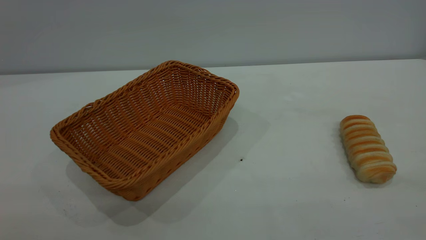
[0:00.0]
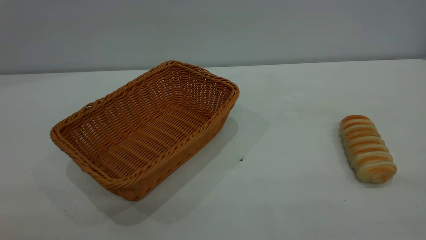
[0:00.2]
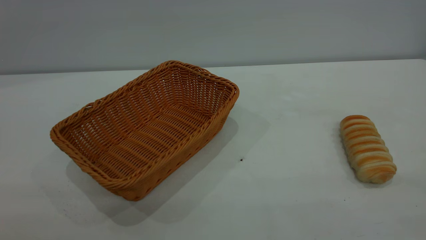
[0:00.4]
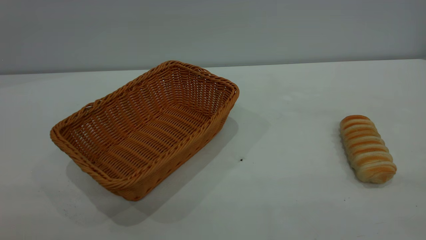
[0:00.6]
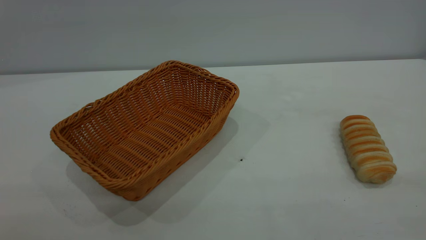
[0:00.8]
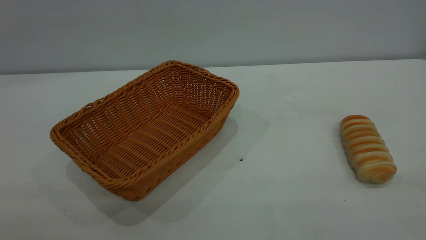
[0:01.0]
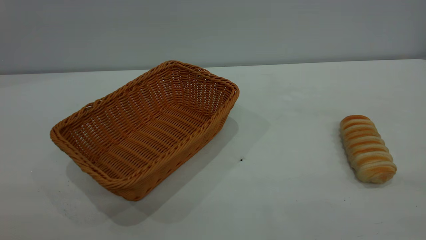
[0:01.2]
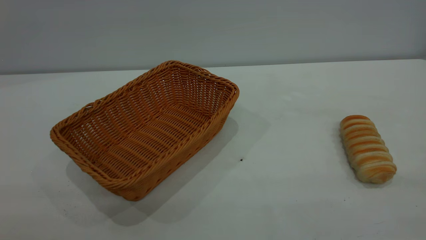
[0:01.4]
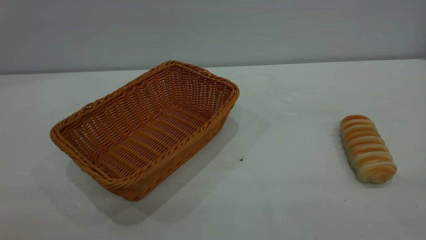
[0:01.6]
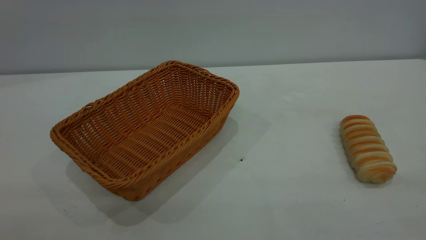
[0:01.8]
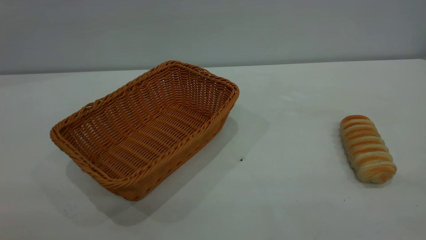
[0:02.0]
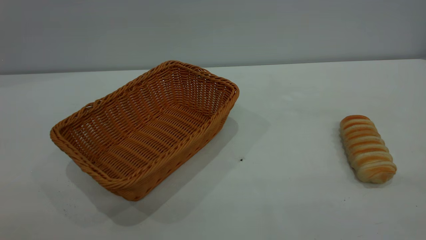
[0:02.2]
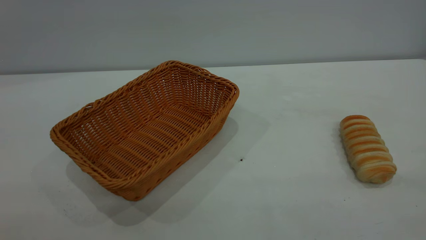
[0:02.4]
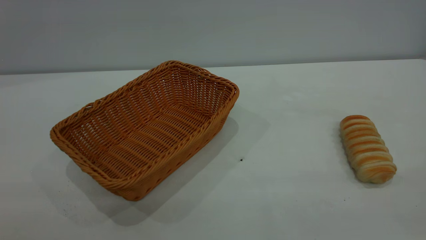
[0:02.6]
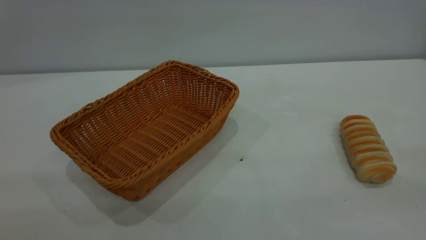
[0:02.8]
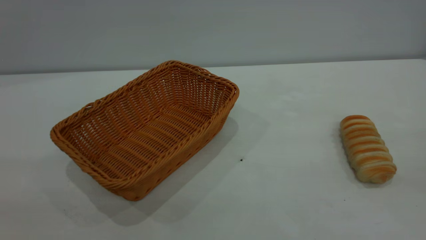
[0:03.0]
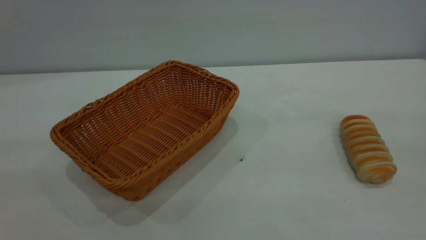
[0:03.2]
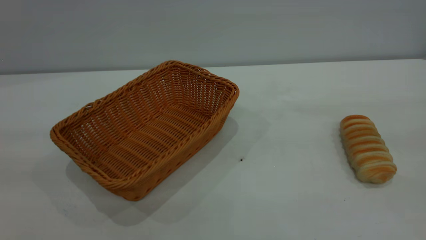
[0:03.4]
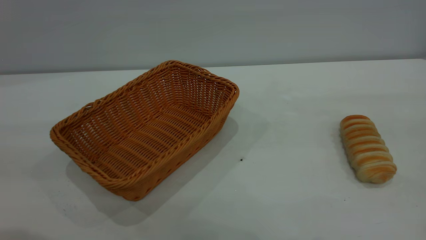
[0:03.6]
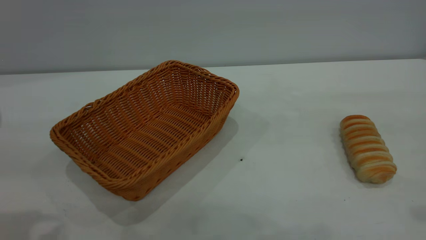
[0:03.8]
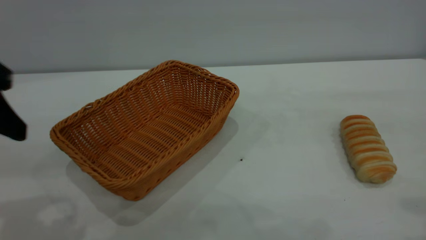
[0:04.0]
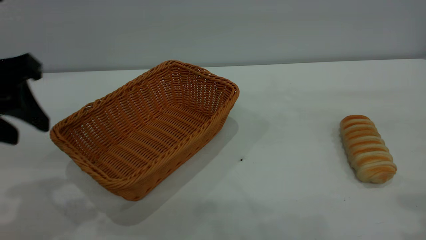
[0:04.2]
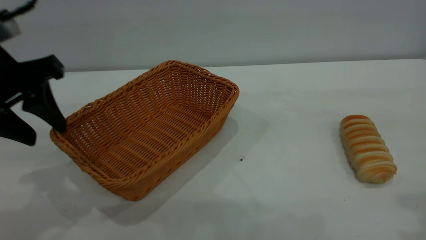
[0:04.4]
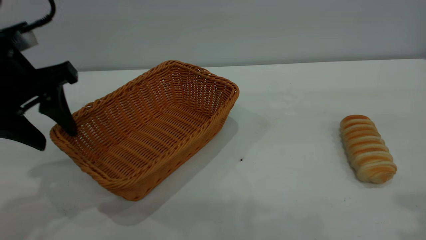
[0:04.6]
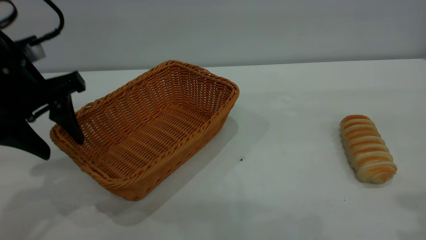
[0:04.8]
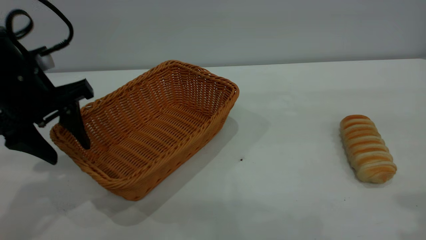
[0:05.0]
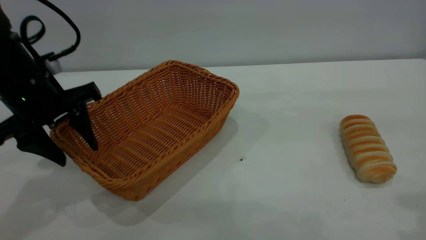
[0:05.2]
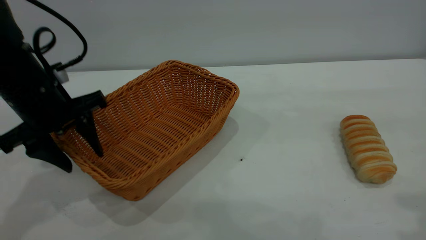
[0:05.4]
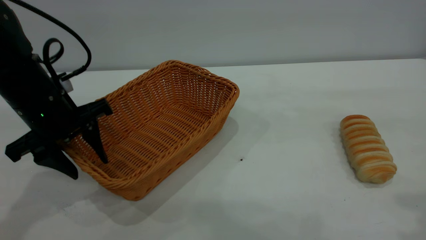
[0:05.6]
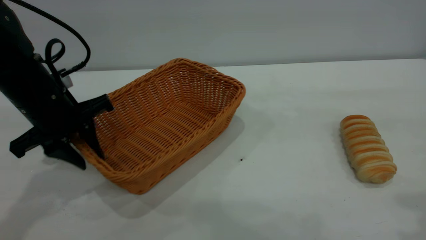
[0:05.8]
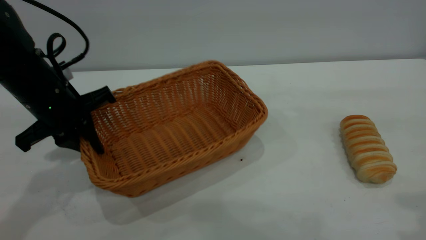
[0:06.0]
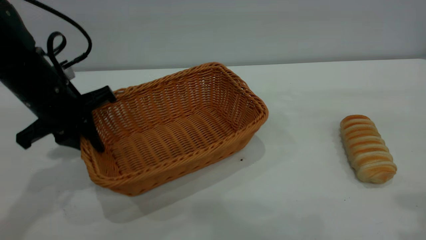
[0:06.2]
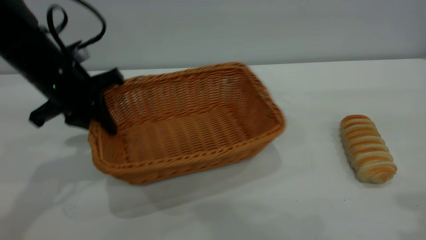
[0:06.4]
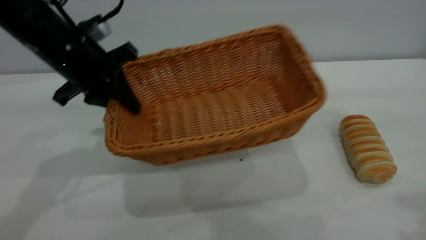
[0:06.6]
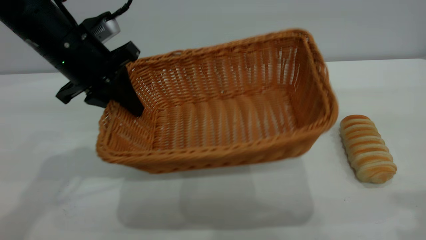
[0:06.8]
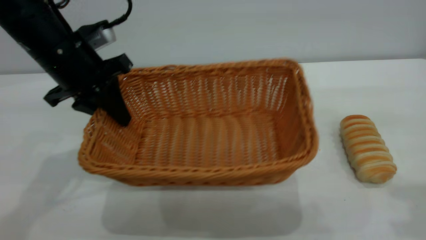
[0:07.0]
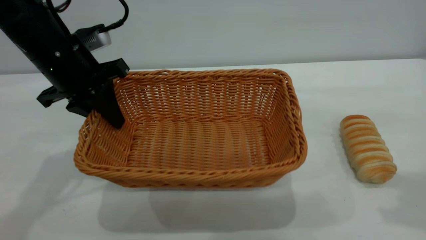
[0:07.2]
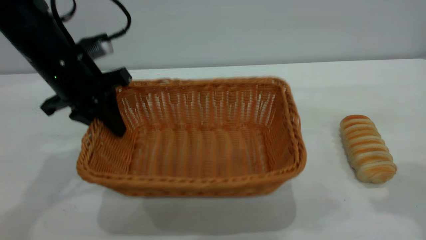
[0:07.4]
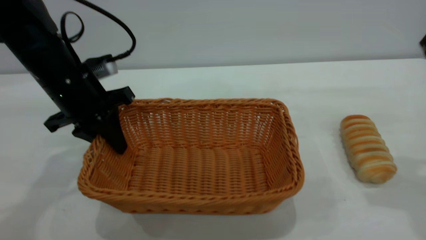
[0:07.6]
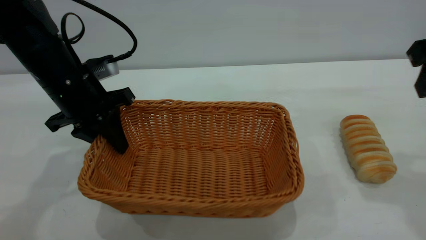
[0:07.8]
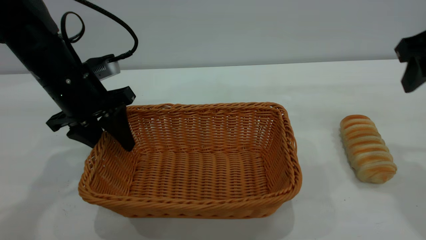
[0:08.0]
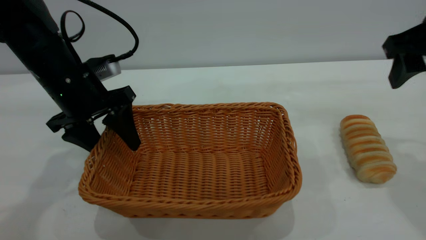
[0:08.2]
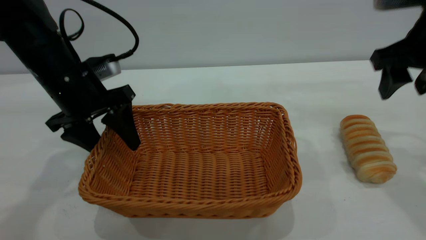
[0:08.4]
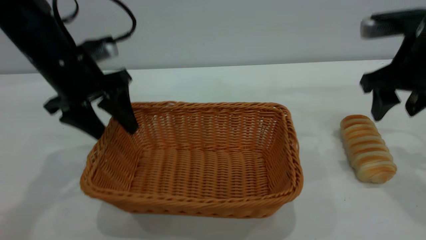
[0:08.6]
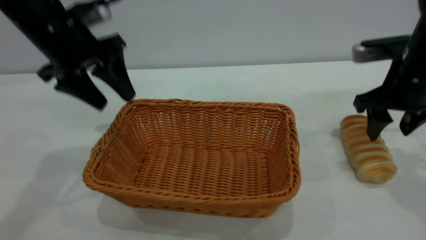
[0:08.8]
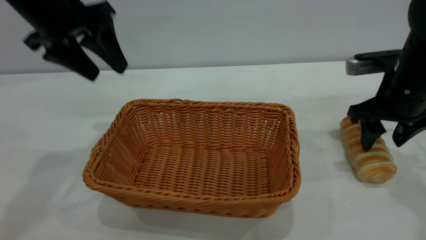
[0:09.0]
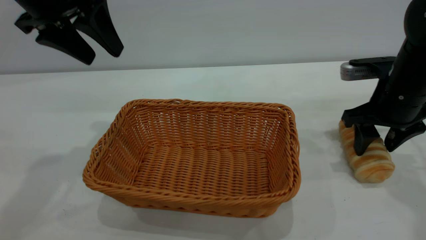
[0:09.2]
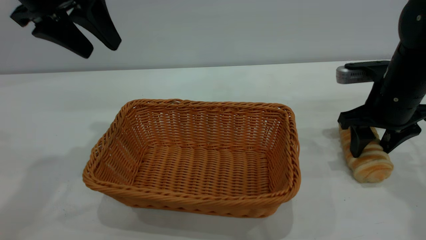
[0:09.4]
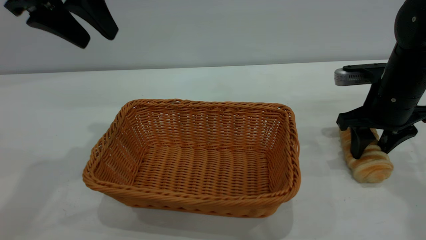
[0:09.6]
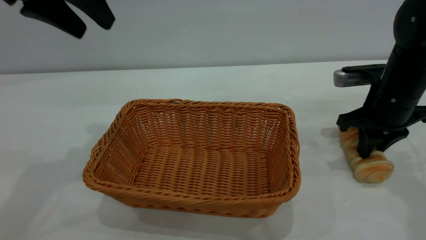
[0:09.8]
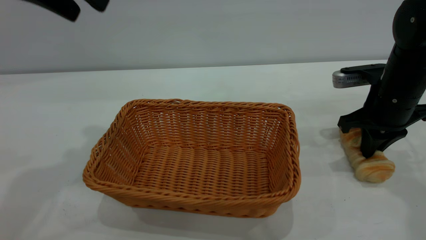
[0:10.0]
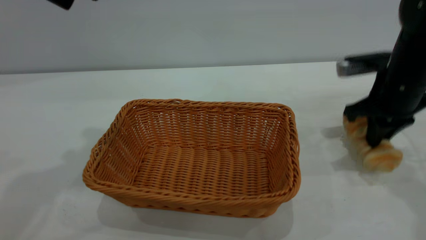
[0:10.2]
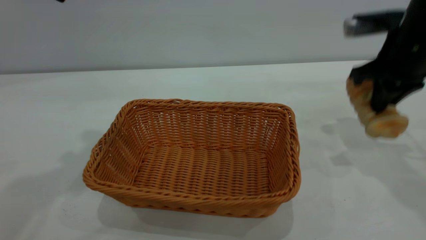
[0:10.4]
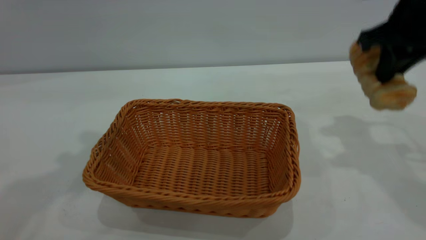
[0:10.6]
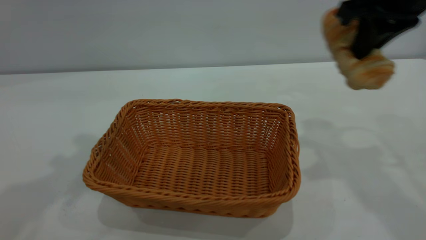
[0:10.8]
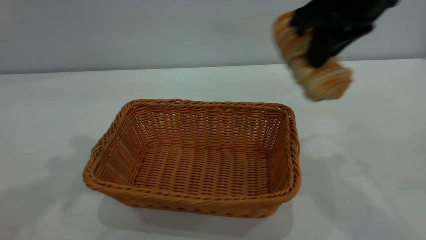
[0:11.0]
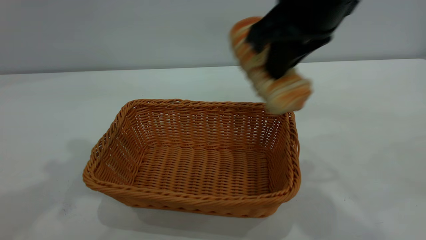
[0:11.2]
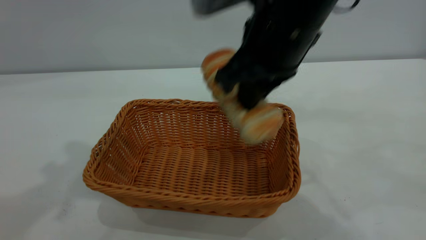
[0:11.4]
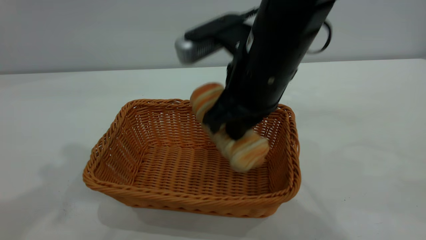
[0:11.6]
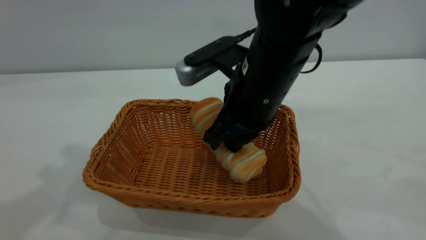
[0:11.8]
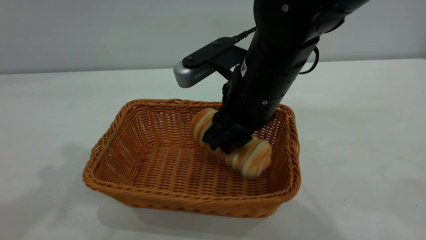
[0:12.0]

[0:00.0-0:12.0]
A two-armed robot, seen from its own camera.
Task of the whole recording: One hand grasps the yellow basket and places it in the middle of the table, while the other hand picks up the long bread and puts it into the yellow basket.
Step, 0:00.0 to 0:08.8: Move the basket to the center of view.
0:00.0 to 0:01.6: Neither gripper changes place.
0:03.0 to 0:04.4: The left gripper travels forward and downward by approximately 25 cm.
0:04.4 to 0:06.0: The left gripper shifts some 10 cm downward and forward, and closes.
0:06.0 to 0:07.6: The right gripper shifts about 10 cm downward and forward.
0:07.6 to 0:09.0: The right gripper moves downward and forward, some 15 cm; the left gripper moves upward, approximately 10 cm, and opens up.
0:09.0 to 0:10.4: Both grippers travel together upward, some 10 cm. The right gripper closes up.
0:10.4 to 0:12.0: The left gripper travels upward by about 5 cm. Meanwhile the right gripper heads to the left, covering some 20 cm, and opens its fingers.

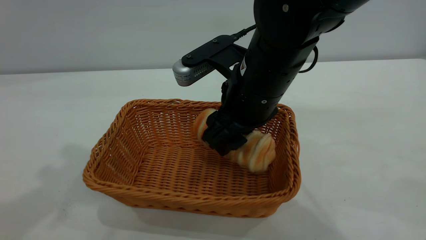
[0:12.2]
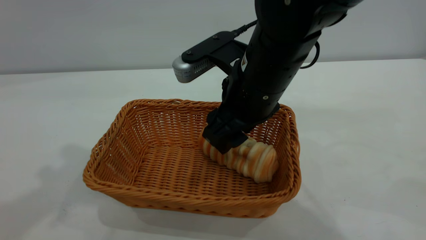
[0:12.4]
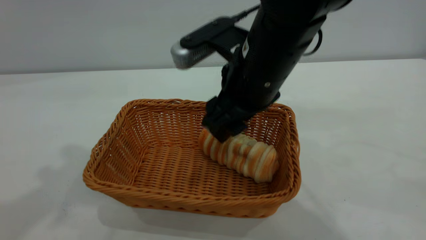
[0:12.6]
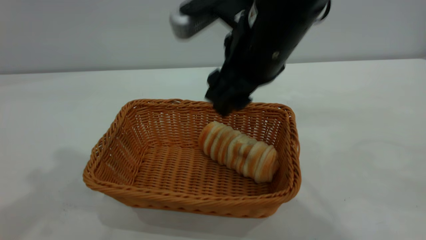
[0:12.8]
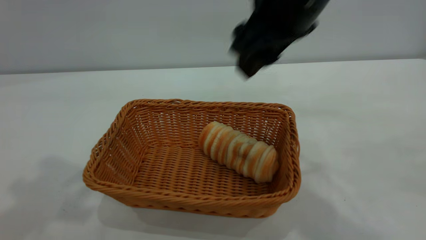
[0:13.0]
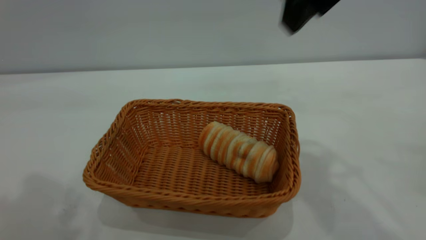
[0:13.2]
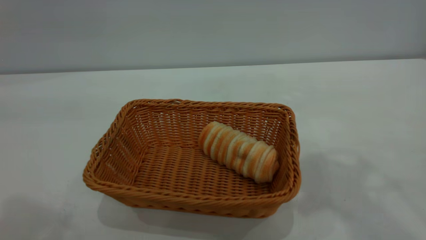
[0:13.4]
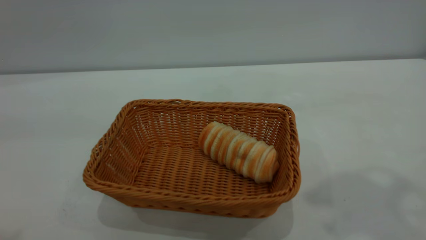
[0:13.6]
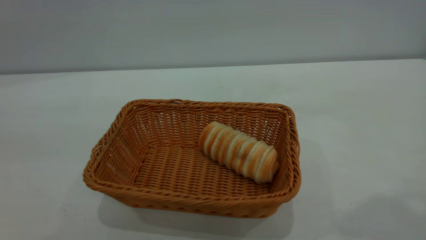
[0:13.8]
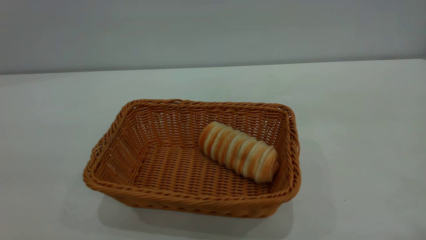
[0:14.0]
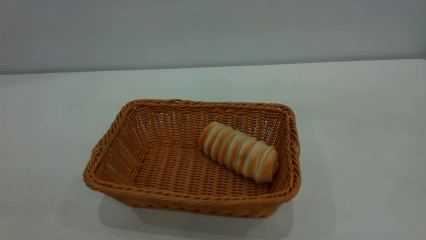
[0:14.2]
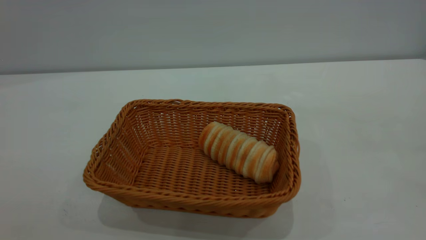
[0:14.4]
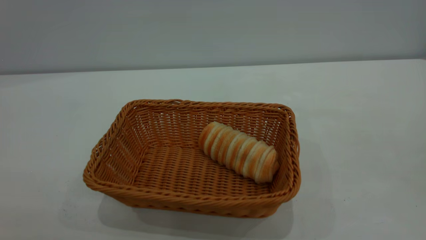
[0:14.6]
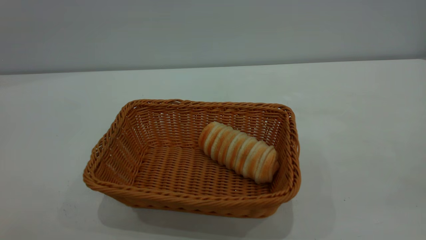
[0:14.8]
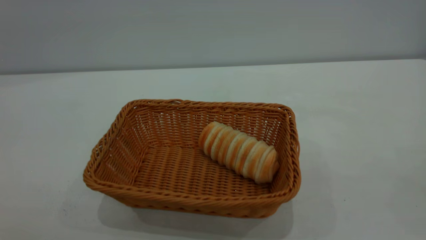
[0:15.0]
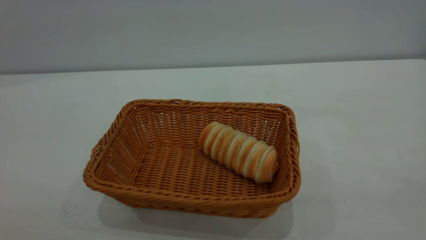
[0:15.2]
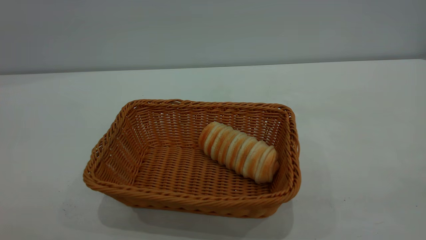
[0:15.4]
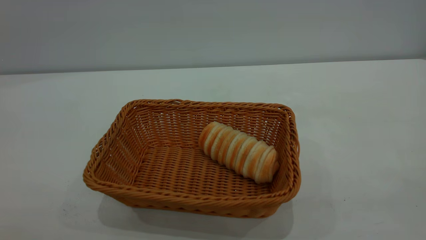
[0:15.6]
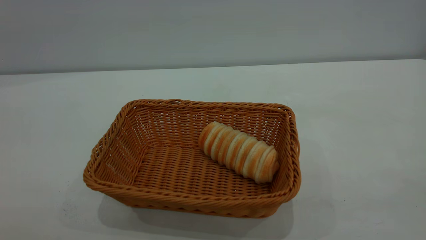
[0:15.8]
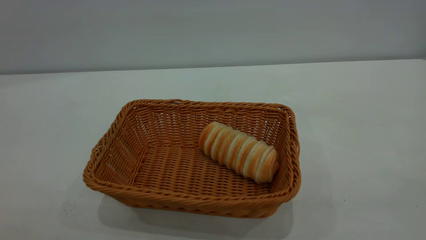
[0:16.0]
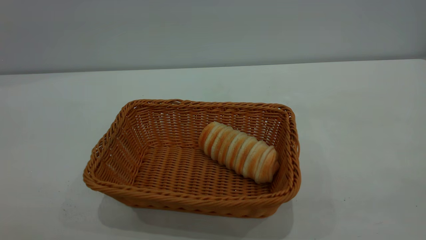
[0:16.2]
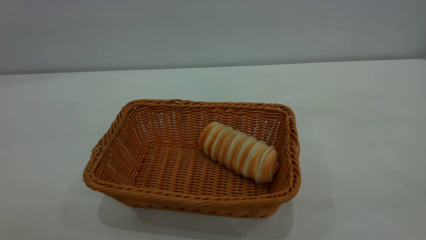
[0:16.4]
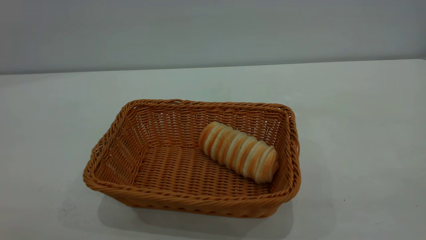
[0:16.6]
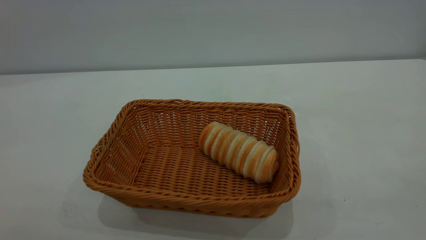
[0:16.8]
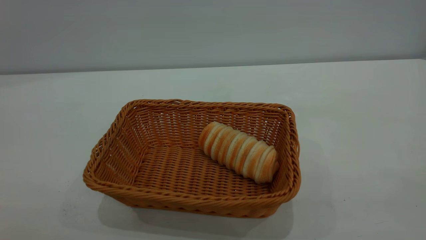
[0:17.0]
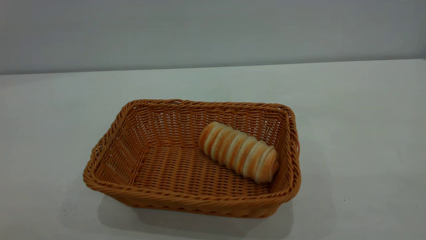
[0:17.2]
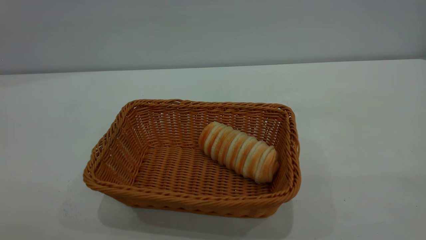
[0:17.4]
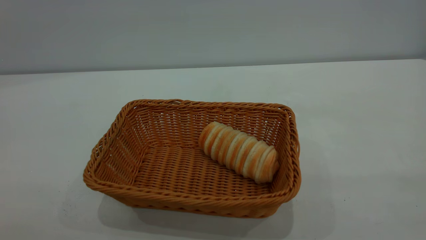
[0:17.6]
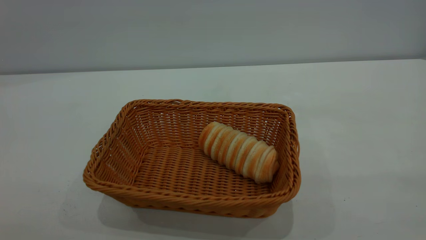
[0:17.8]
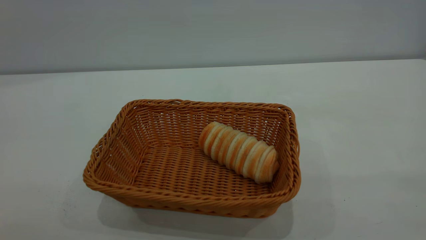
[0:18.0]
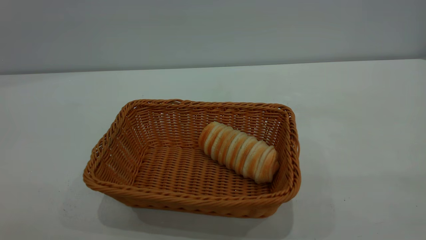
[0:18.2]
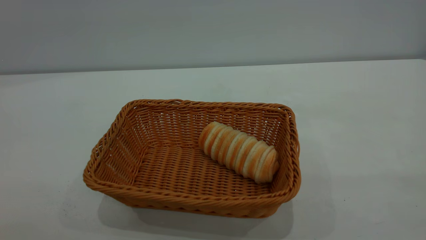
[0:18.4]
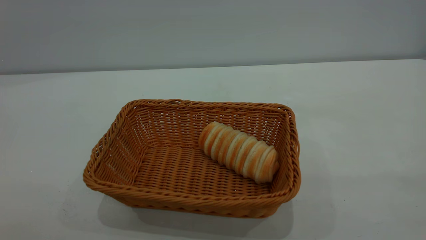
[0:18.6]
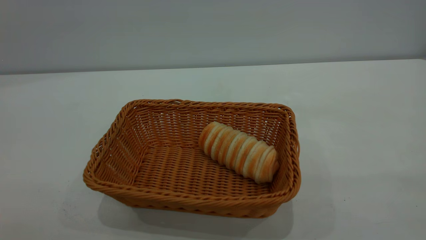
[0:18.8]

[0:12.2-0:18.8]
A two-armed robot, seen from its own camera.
Task of the whole recording: One hand grasps the yellow basket and places it in the middle of the table, while the other hand picks up the long bread and puts it into the yellow basket.
0:12.2 to 0:13.8: The right gripper travels upward, to the right and backward by roughly 35 cm. Meanwhile the left gripper goes approximately 20 cm backward.
